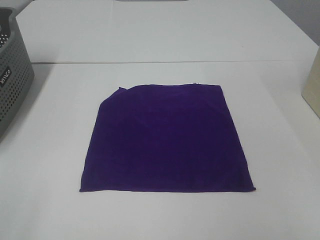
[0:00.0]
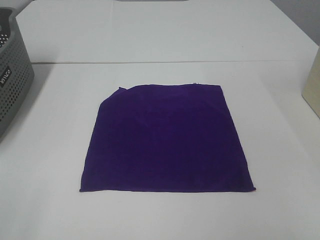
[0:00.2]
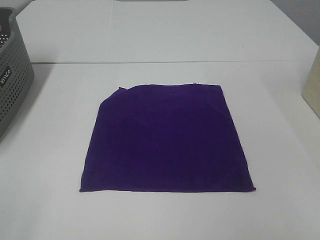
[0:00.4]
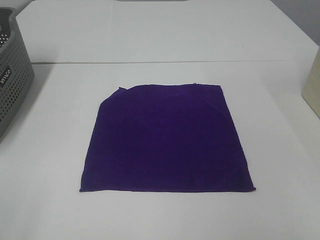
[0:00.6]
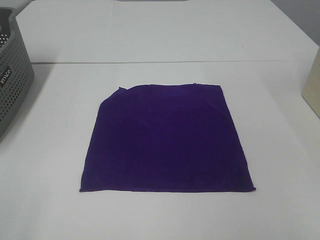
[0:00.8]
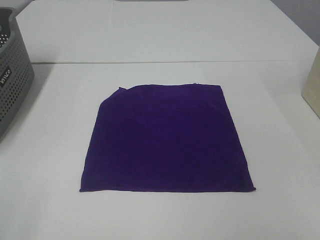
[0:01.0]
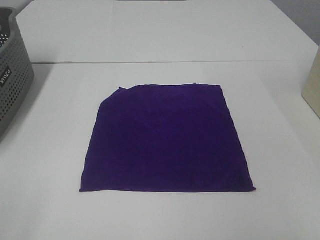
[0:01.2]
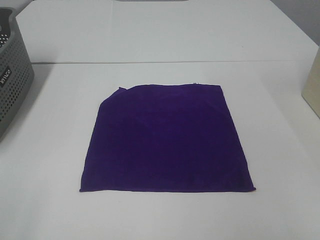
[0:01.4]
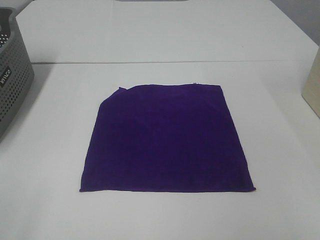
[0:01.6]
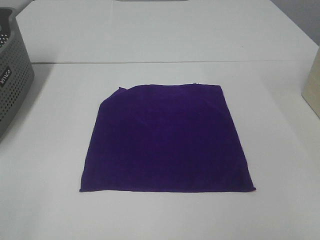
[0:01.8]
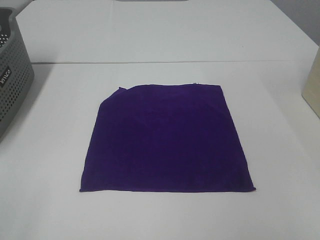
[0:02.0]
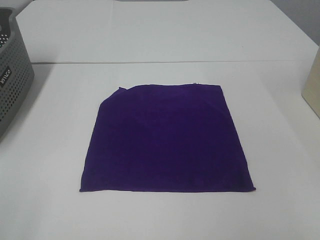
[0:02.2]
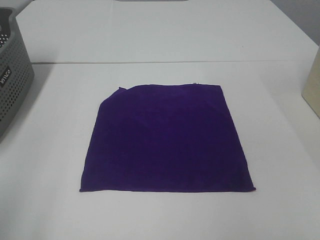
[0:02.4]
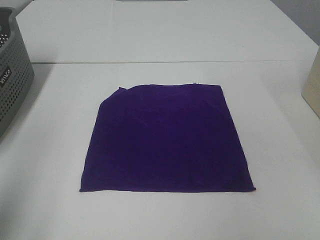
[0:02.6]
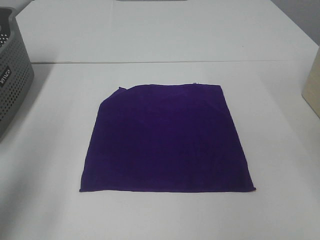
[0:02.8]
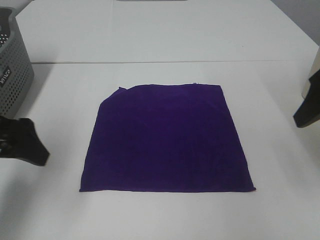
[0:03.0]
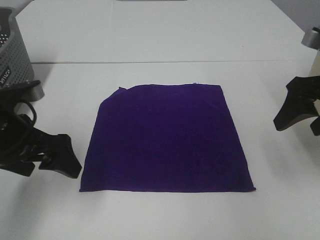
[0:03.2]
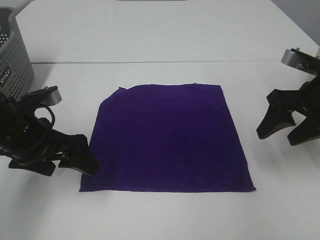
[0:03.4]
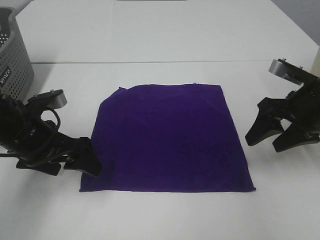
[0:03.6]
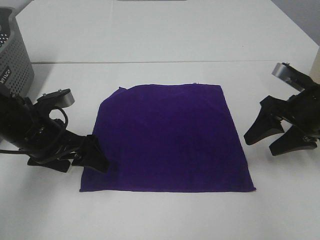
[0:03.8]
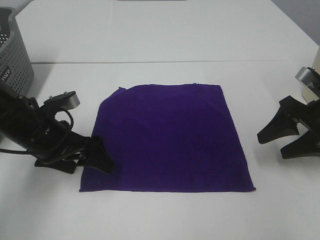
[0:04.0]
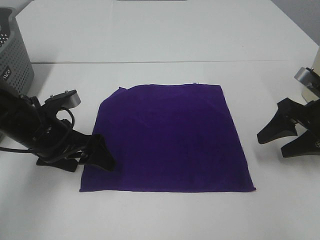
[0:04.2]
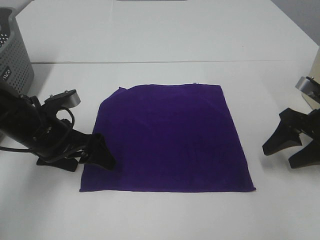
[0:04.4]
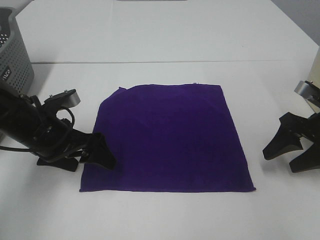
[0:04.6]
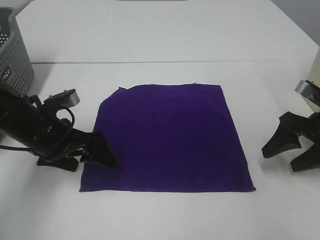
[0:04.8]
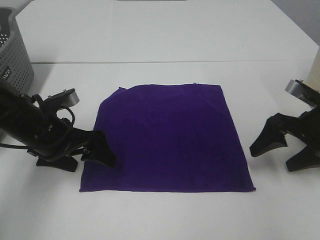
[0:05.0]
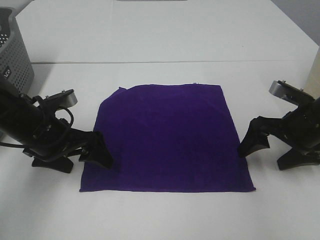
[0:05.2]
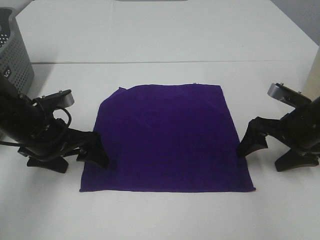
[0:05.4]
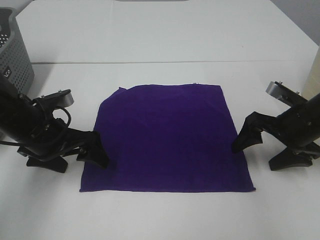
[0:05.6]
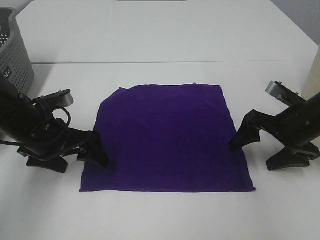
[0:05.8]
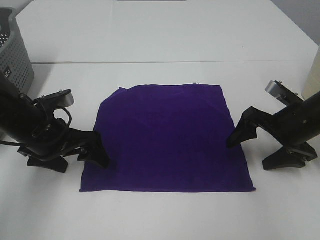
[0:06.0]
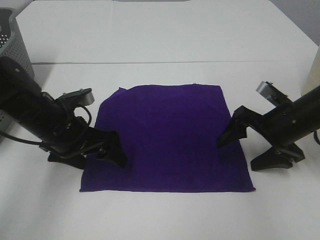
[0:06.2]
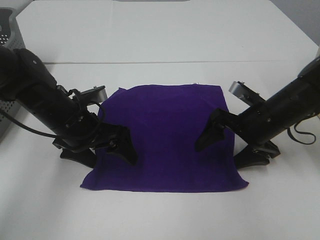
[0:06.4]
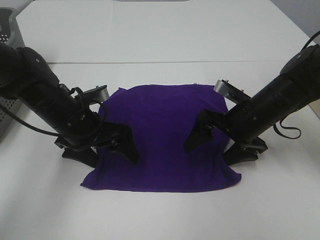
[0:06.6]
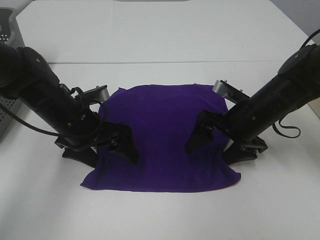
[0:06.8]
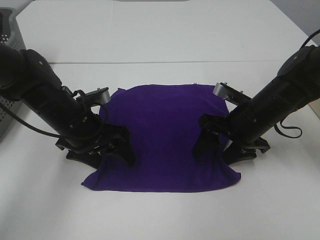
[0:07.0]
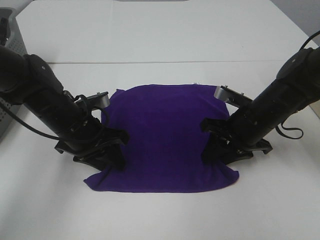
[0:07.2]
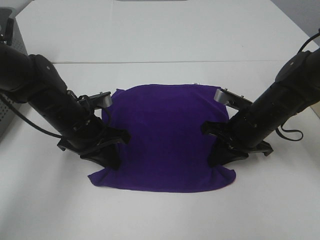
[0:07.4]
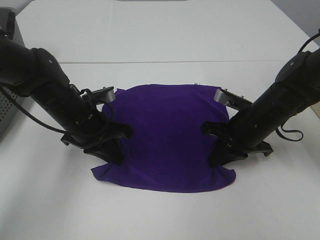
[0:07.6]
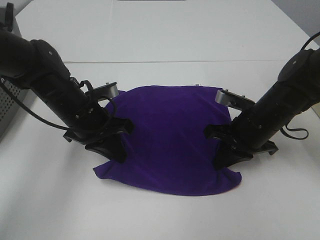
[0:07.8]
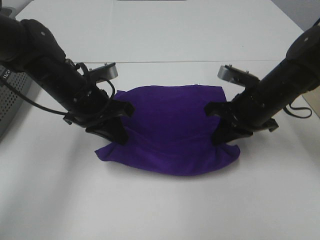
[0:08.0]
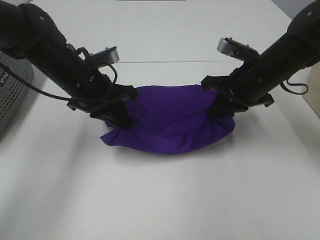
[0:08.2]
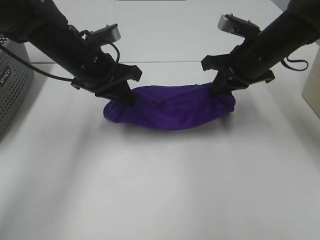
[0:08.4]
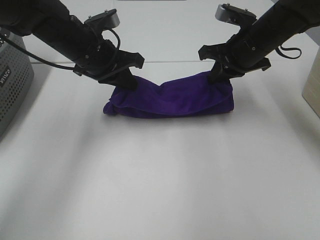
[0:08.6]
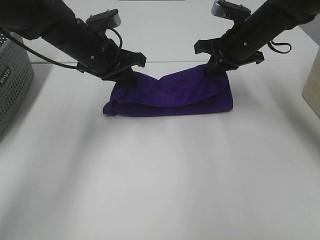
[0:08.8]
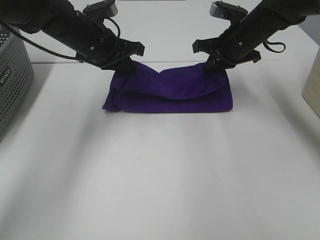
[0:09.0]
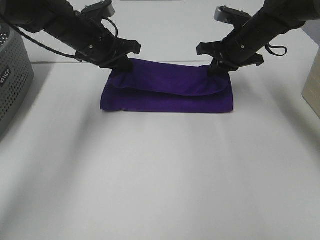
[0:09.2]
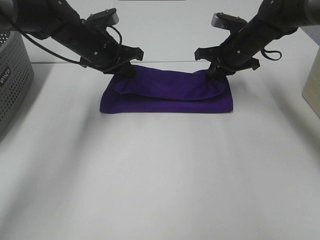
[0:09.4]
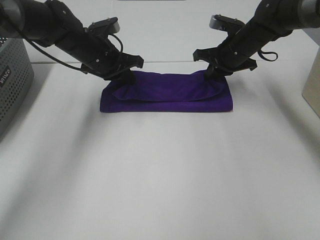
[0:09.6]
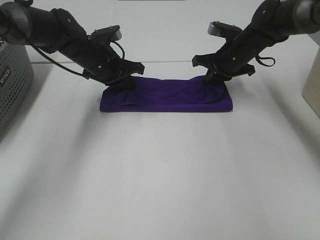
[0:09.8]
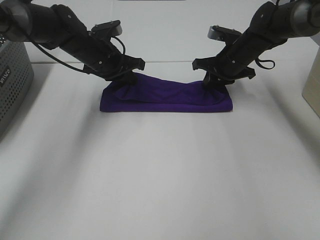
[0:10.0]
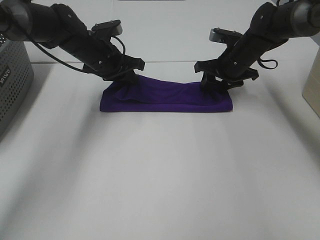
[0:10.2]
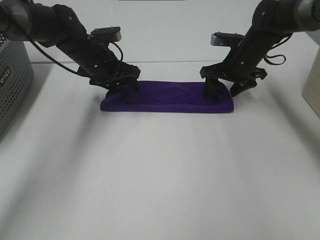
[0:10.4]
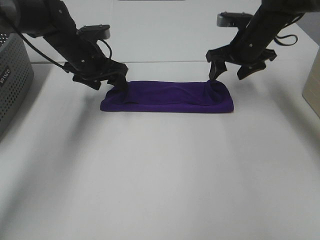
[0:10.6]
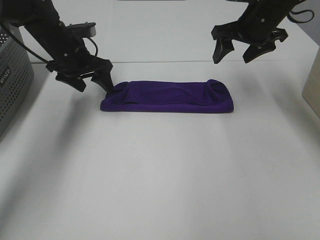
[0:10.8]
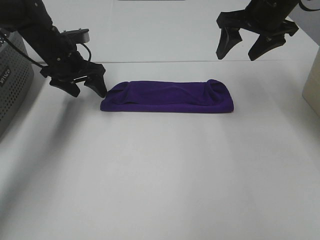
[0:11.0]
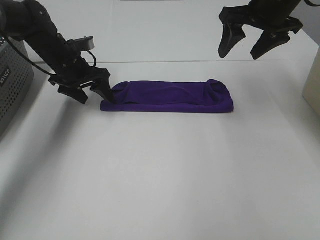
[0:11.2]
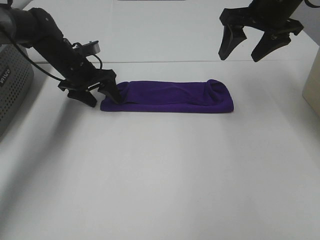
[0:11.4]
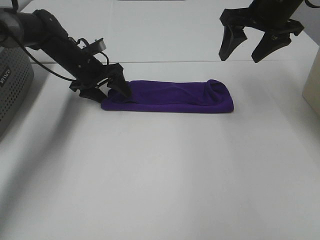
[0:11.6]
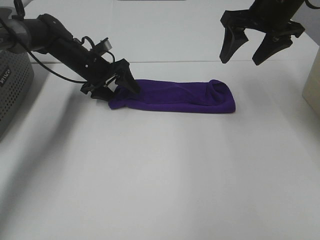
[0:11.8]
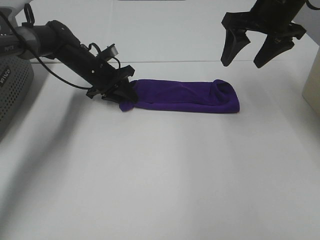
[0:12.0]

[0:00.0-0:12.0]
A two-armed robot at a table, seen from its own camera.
Task of the whole recording: Fold towels.
Step, 0:00.0 to 0:07.4: Left hand: grab the bottom left corner of purple towel.
Step, 0:00.0 to 0:07.4: Right hand: grab the bottom right corner of purple towel.
Step, 0:07.6 to 0:10.4: Left hand: fold the purple towel up.
Step, 0:07.6 to 0:10.4: Right hand: fold the purple towel up.
0:00.0 to 0:01.6: Both grippers stay about where they are.
0:01.6 to 0:03.0: The two grippers go roughly 25 cm forward.
0:03.0 to 0:04.4: The right gripper is displaced downward by about 15 cm, while the left gripper moves downward, forward and to the right, about 15 cm.
0:04.4 to 0:06.0: The right gripper moves approximately 5 cm.
0:06.0 to 0:07.6: The left gripper is displaced to the right by about 5 cm, and closes. Meanwhile the right gripper goes approximately 5 cm to the left, and closes.
0:07.6 to 0:09.0: Both grippers move forward and upward, roughly 15 cm.
0:09.0 to 0:10.4: The right gripper ends up roughly 5 cm from where it was, and opens up; the left gripper shifts about 5 cm downward, and opens up.
0:10.4 to 0:12.0: The right gripper is displaced upward and backward by some 15 cm, while the left gripper is displaced downward by some 5 cm, and closes up.

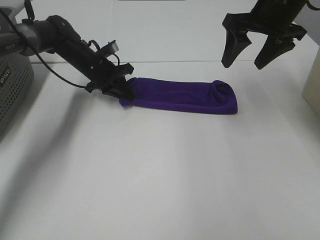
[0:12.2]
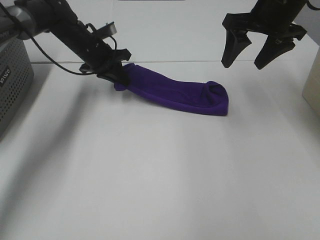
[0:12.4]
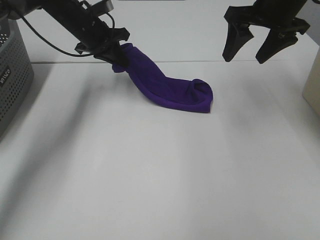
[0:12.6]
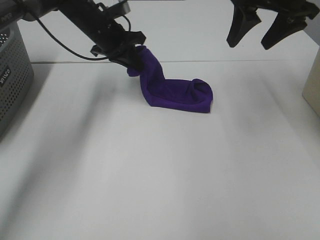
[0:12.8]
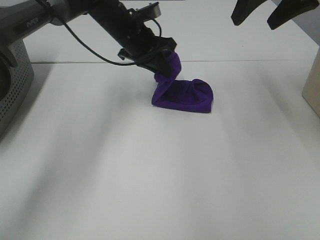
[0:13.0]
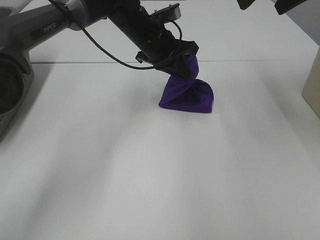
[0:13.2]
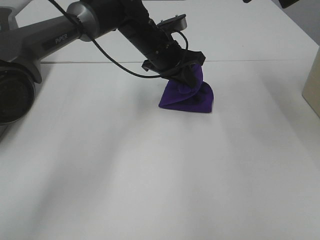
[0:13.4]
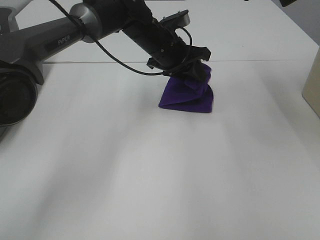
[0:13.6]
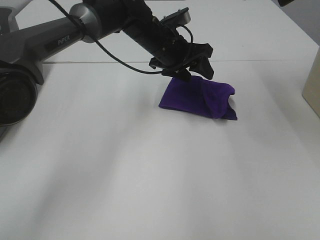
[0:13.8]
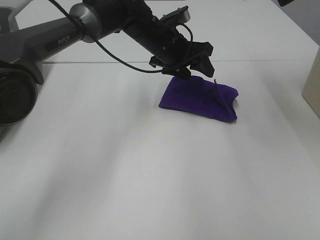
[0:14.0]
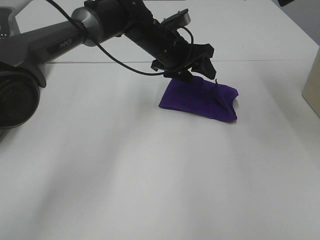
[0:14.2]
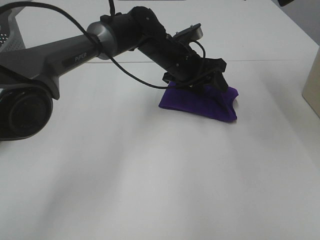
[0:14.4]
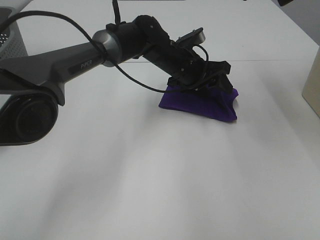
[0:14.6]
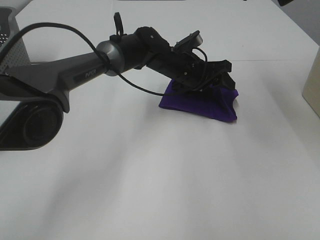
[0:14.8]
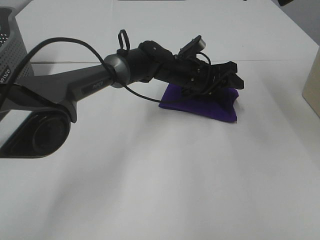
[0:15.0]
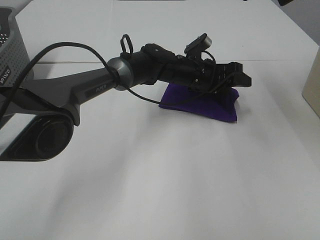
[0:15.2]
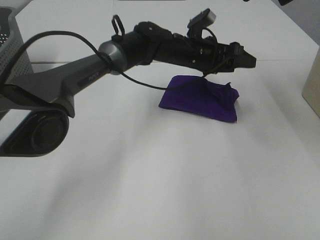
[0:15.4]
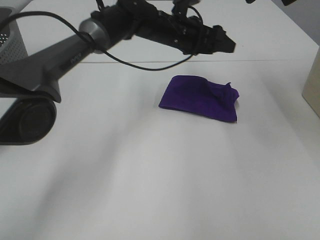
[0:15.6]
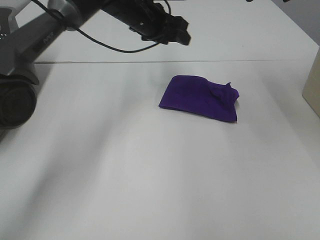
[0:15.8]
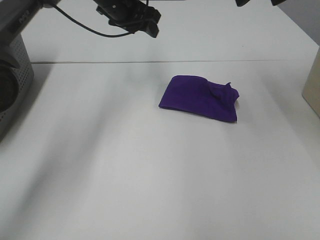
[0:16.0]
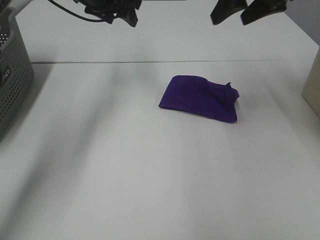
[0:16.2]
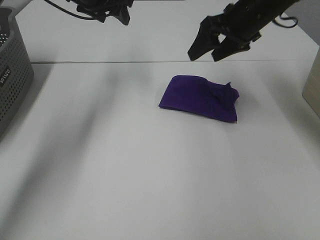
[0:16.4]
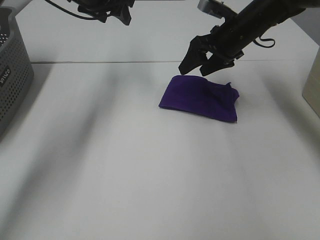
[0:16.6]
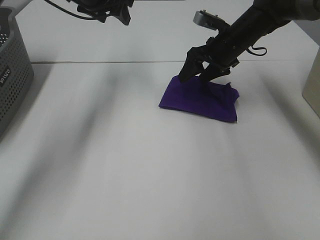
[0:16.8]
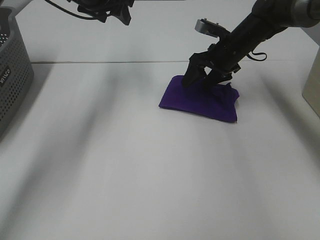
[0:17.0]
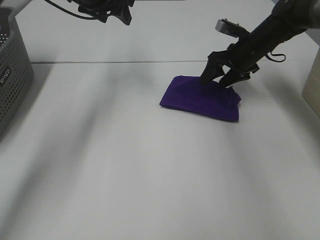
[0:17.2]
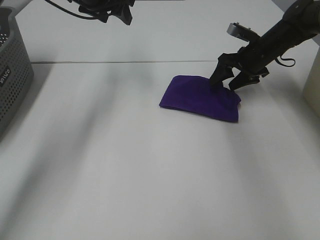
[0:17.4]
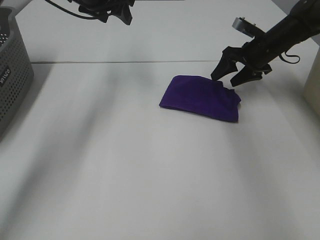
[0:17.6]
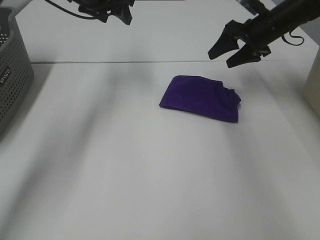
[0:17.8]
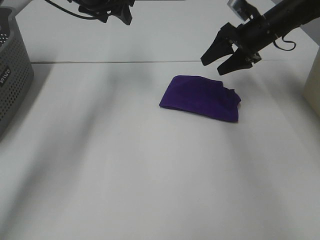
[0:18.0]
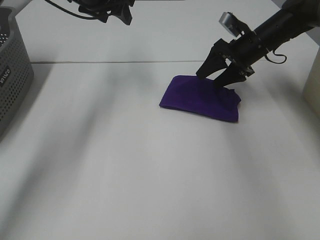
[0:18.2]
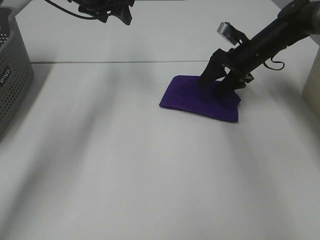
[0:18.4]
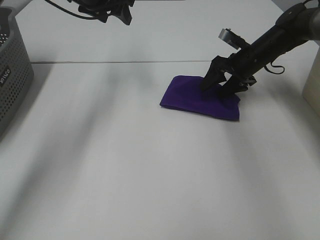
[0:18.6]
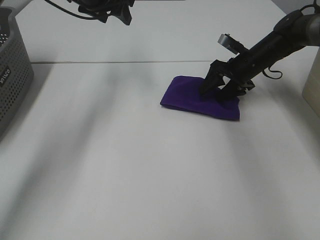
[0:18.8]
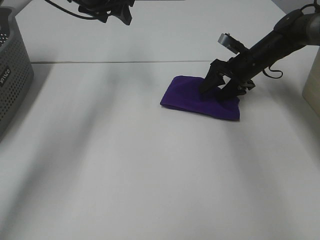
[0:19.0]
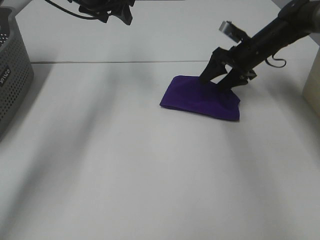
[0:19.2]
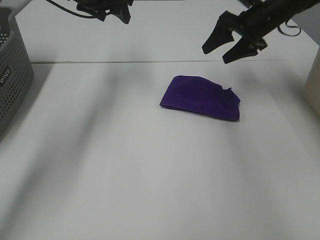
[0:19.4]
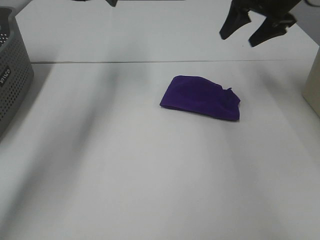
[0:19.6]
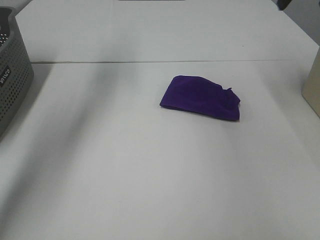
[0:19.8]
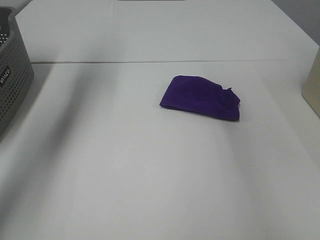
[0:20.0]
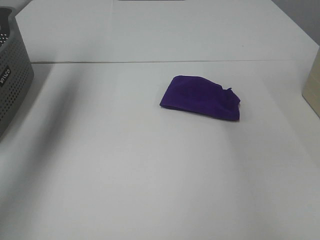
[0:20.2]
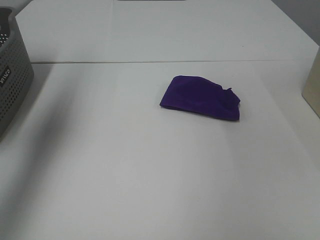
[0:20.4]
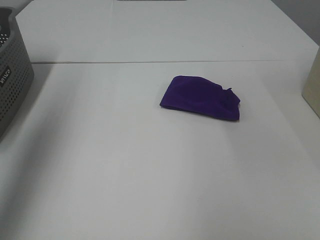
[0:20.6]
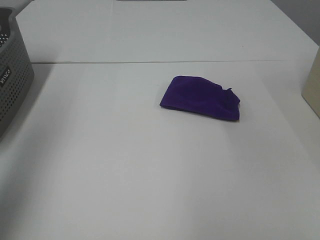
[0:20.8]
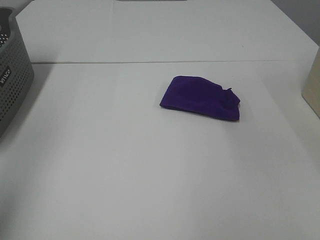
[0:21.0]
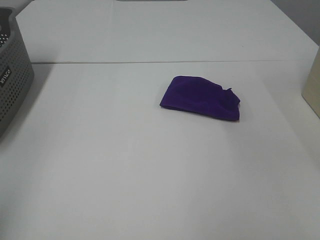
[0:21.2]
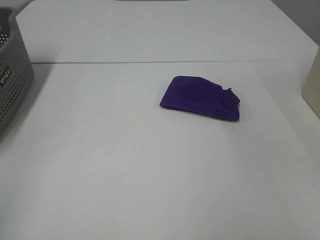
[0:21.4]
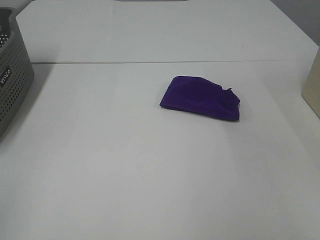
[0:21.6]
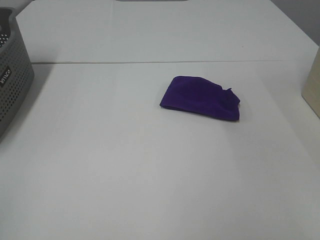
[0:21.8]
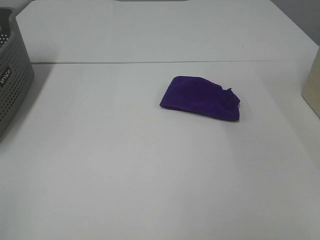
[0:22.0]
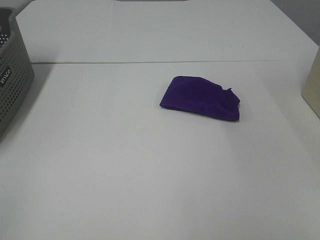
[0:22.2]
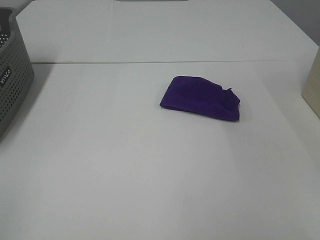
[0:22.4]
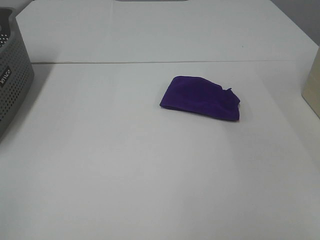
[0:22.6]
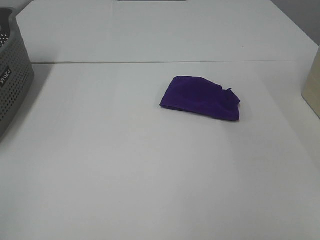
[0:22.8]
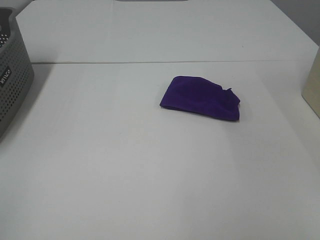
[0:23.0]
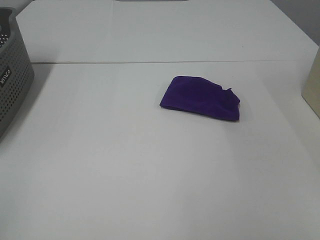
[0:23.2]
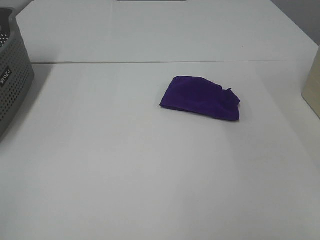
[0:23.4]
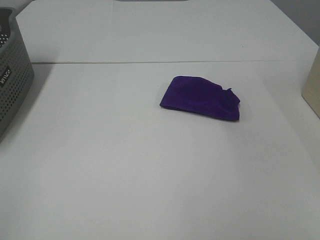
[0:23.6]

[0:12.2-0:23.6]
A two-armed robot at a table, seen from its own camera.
Task of the whole recording: Fold towels.
Step, 0:12.2 to 0:15.2: Left hand: fold the purple towel from left to right.
Step, 0:15.4 to 0:19.2: Right hand: adjust the purple towel.
0:12.2 to 0:13.6: The right gripper shifts some 15 cm upward and backward. The left gripper shifts roughly 20 cm to the right and upward, and opens up.
0:13.6 to 0:15.0: The left gripper heads downward and to the right, covering some 10 cm.
0:15.0 to 0:16.4: The right gripper goes about 20 cm downward and forward. Meanwhile the left gripper goes about 25 cm to the left and upward.
0:16.4 to 0:17.8: The right gripper shifts roughly 10 cm to the right and forward.
0:17.8 to 0:19.4: The right gripper reaches some 10 cm downward, then returns.
0:19.4 to 0:20.8: The right gripper heads backward and upward, covering roughly 40 cm. Meanwhile the left gripper is displaced backward and to the left by approximately 40 cm.
0:20.8 to 0:22.2: The left gripper travels backward and downward by roughly 20 cm.
